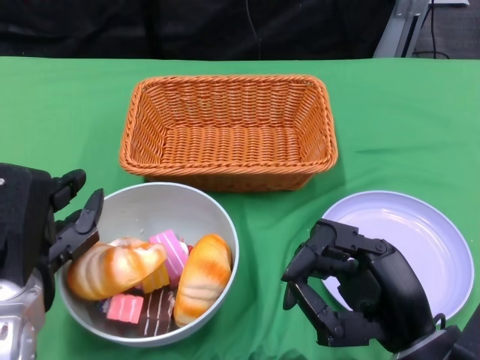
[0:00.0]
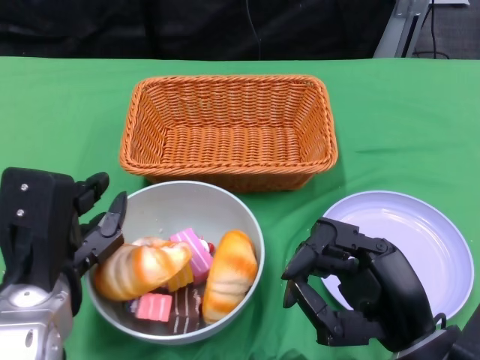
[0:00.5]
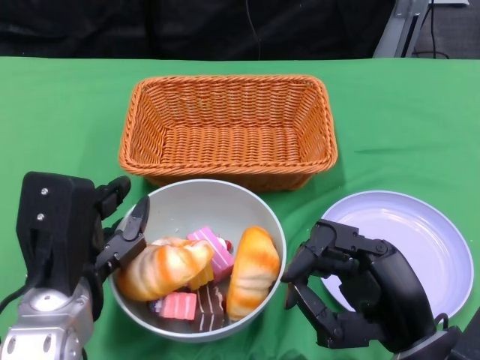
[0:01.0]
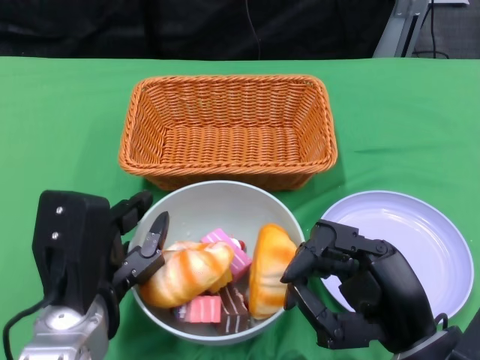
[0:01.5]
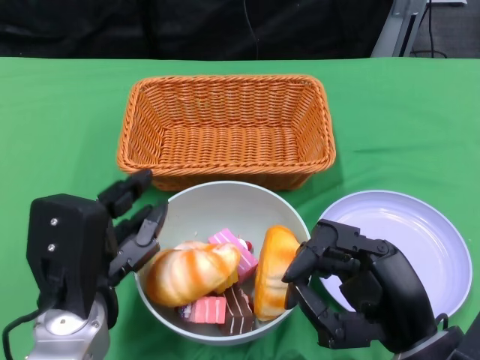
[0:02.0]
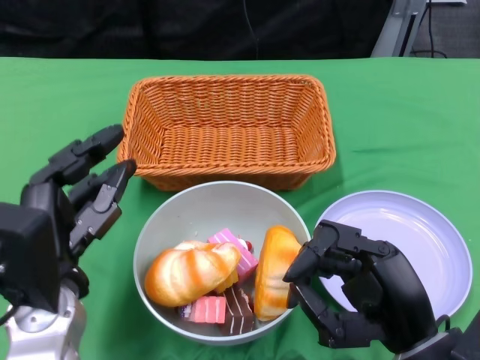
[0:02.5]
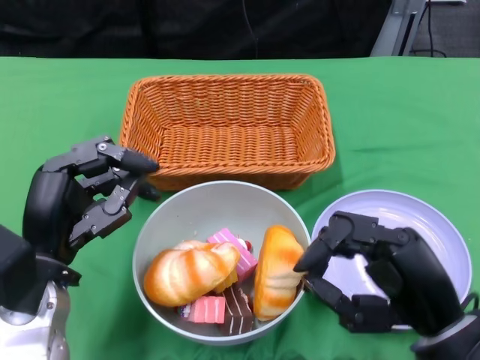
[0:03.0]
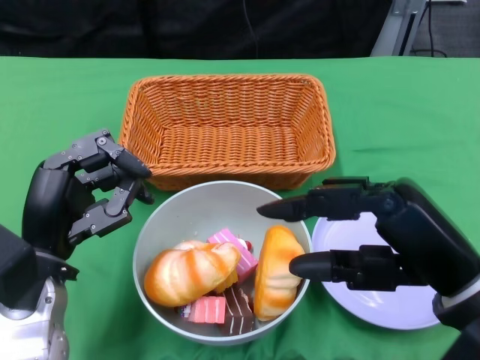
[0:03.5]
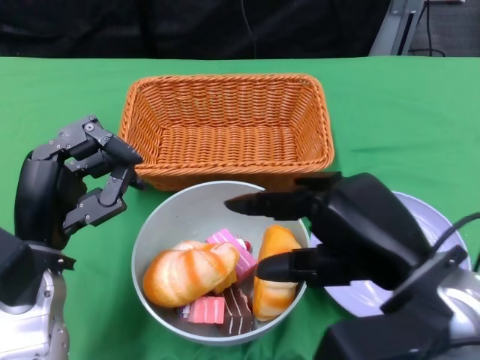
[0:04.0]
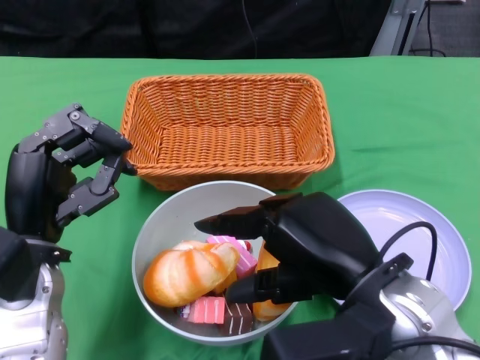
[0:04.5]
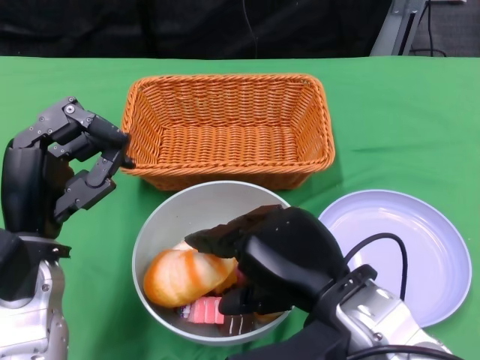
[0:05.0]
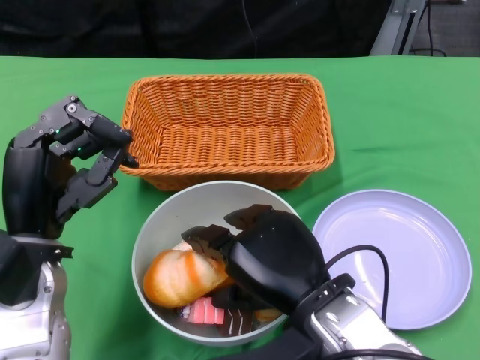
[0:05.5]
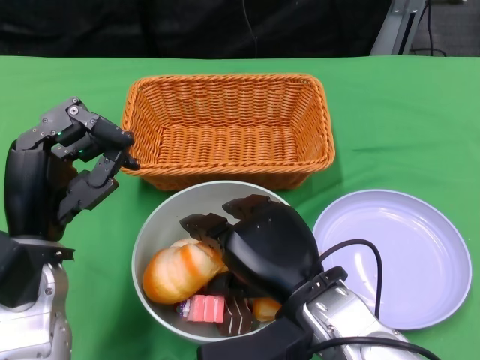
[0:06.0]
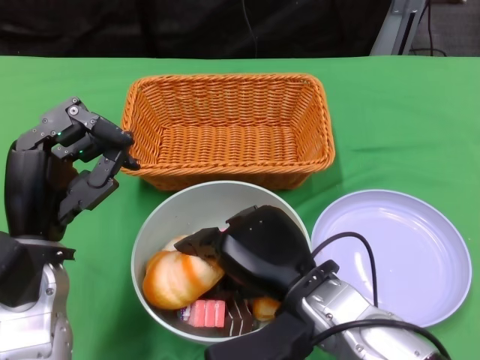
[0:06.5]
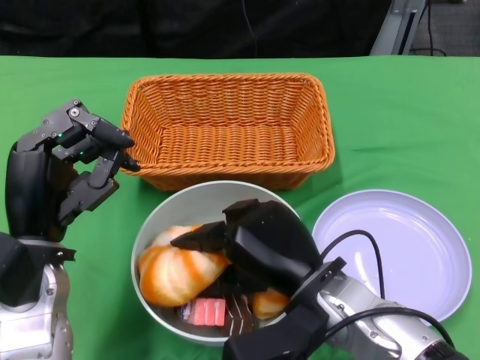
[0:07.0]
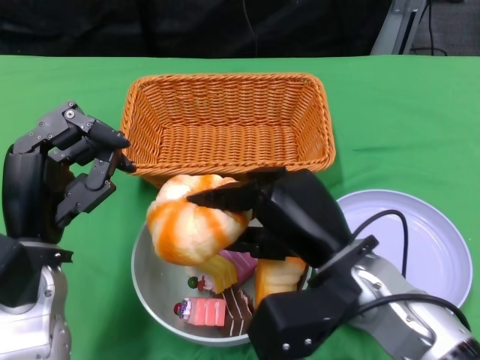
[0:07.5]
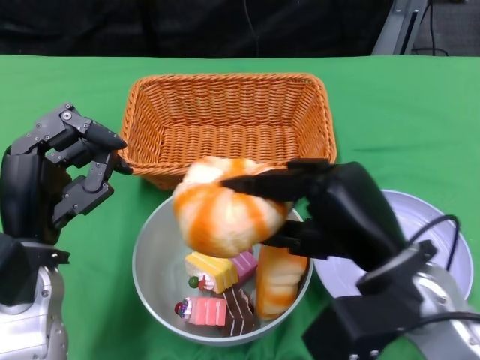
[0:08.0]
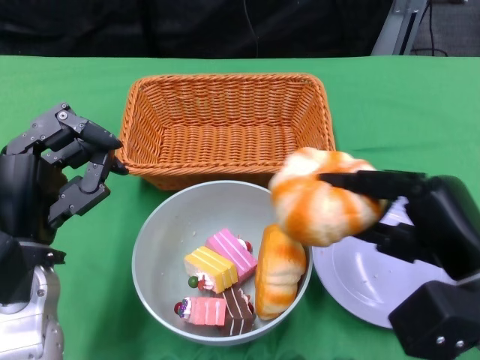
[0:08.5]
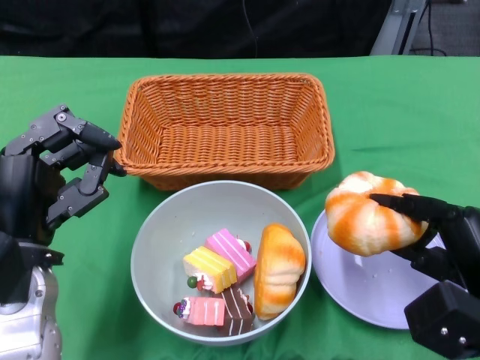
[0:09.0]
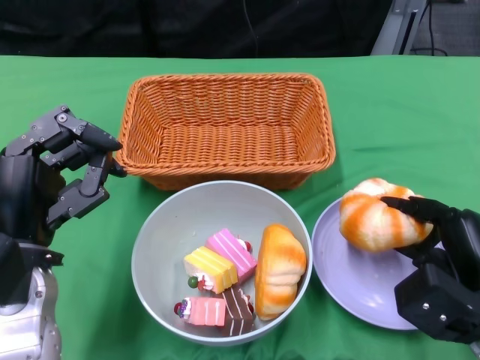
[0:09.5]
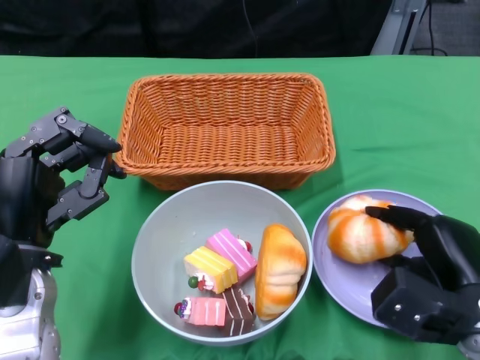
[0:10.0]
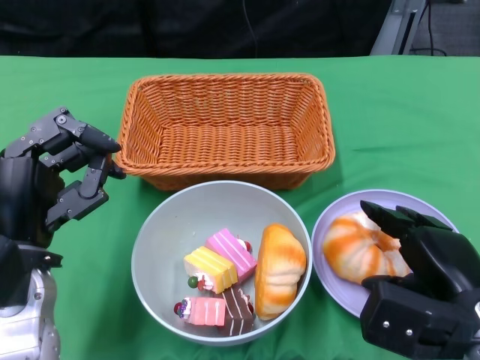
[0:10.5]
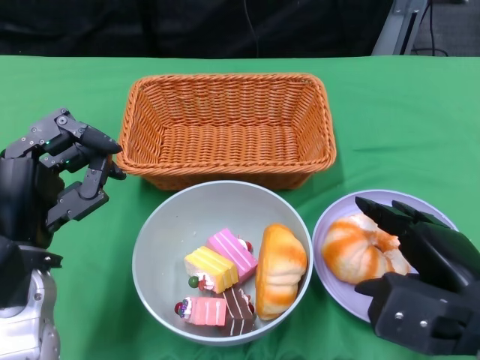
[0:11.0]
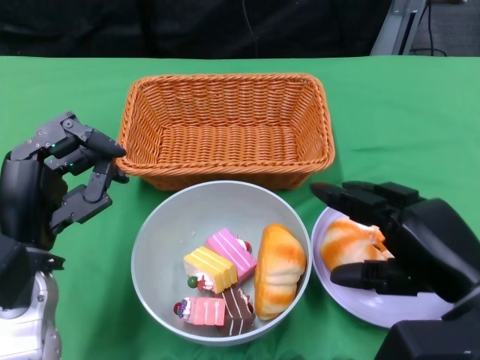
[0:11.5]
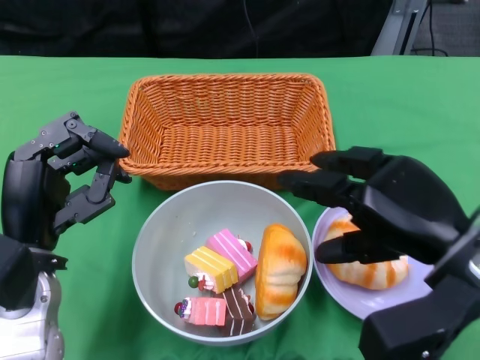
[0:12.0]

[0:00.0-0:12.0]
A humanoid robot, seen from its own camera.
Step, 0:00.0 to 0:02.0: Push the bowl to the center of the table using the left gripper.
0:00.0 to 0:02.0: The left hand goes about 5 cm to the right.
0:02.0 to 0:04.0: The left hand ends up roughly 5 cm from where it was; the right hand travels upward by approximately 10 cm.
0:04.0 to 0:06.0: The right hand heads to the left and downward, covering roughly 10 cm.
0:06.0 to 0:08.0: The right hand goes about 5 cm to the right.
0:08.0 to 0:10.0: The right hand moves downward and to the right, about 15 cm.
0:10.0 to 0:12.0: The right hand goes about 10 cm upward.

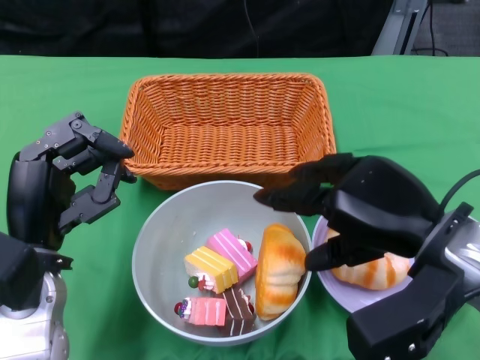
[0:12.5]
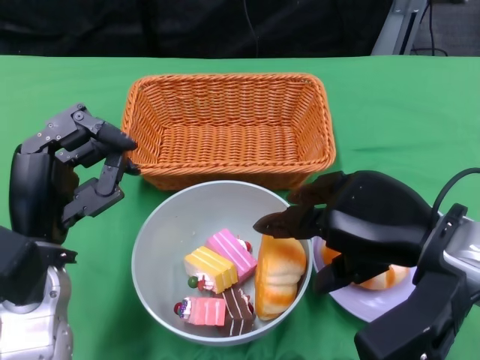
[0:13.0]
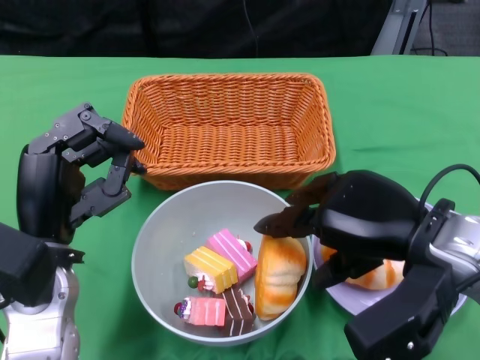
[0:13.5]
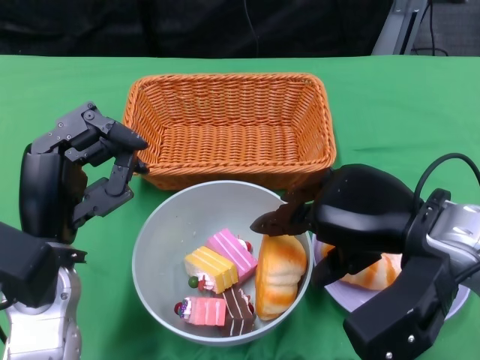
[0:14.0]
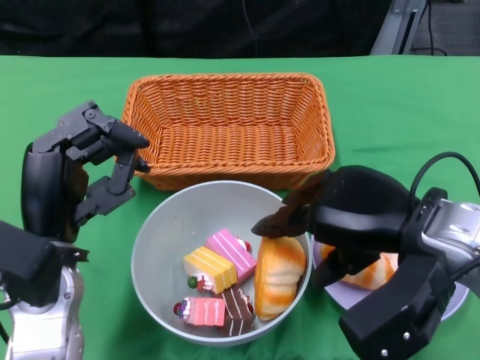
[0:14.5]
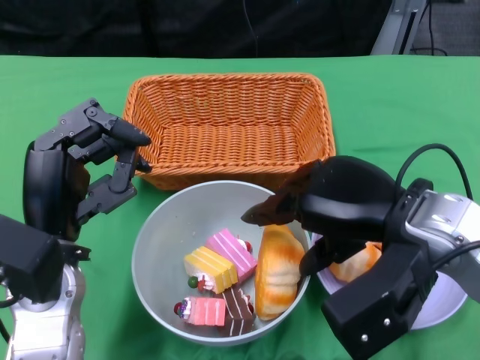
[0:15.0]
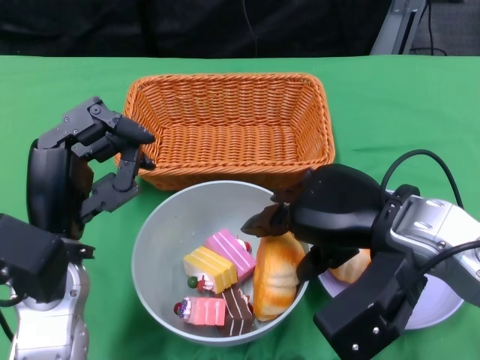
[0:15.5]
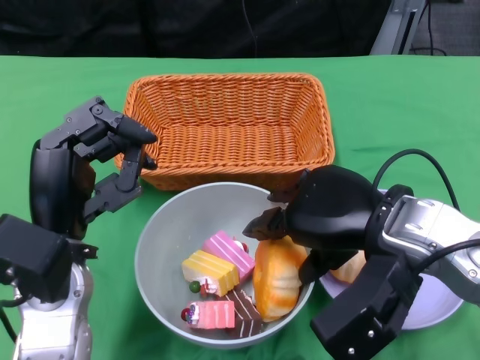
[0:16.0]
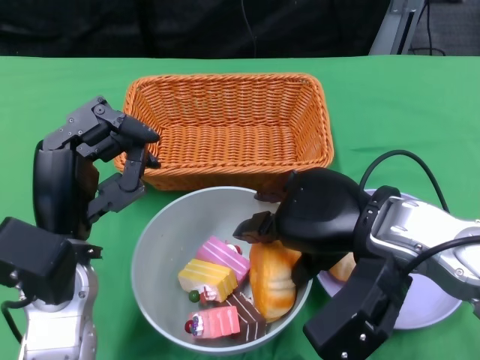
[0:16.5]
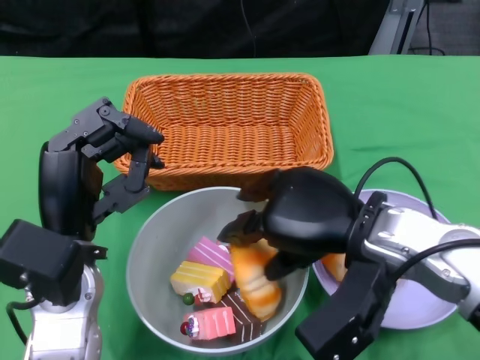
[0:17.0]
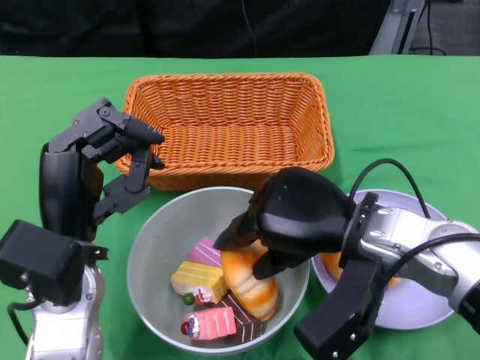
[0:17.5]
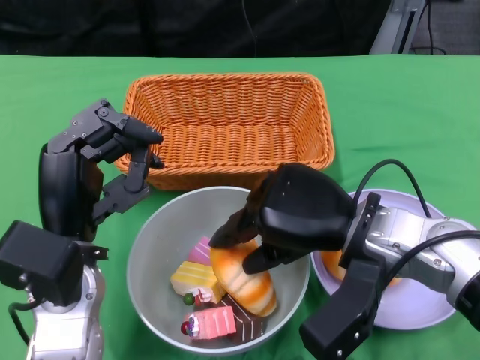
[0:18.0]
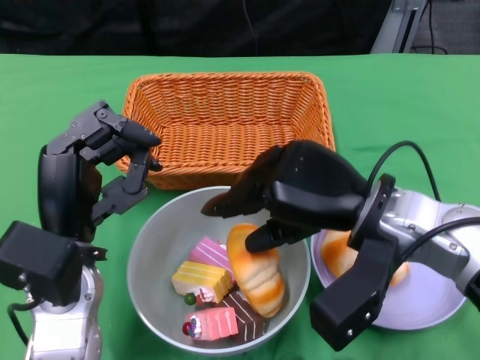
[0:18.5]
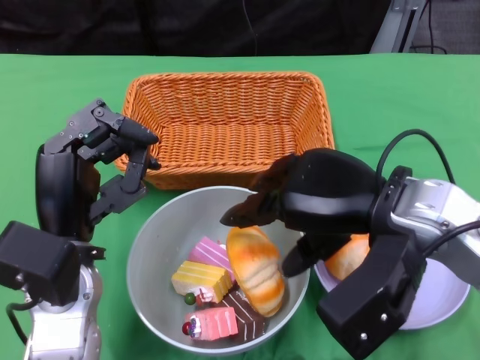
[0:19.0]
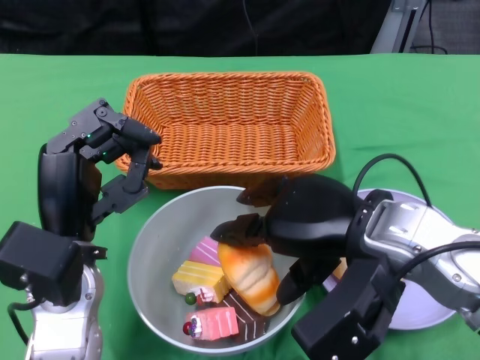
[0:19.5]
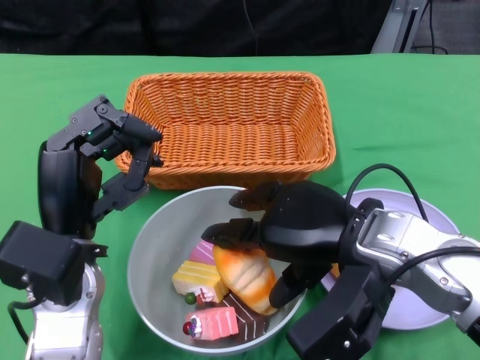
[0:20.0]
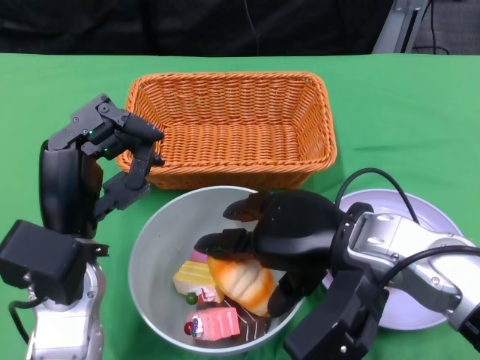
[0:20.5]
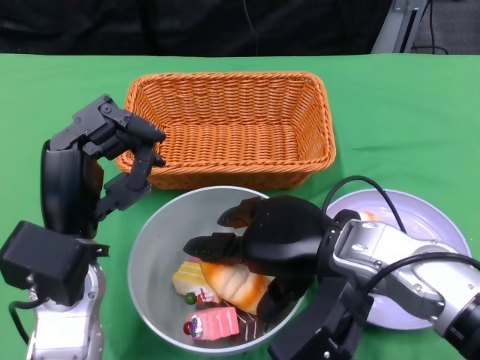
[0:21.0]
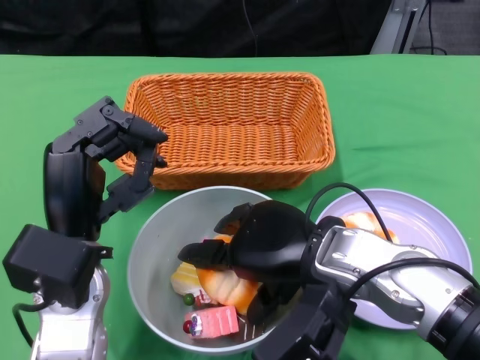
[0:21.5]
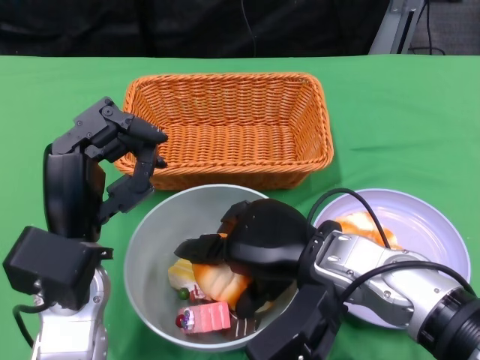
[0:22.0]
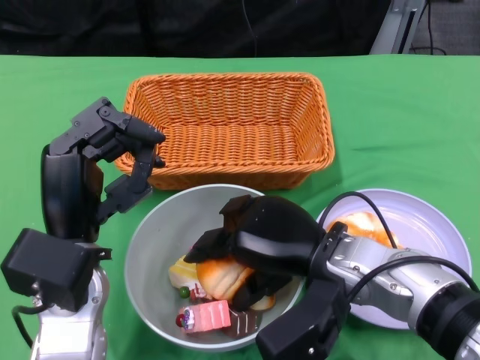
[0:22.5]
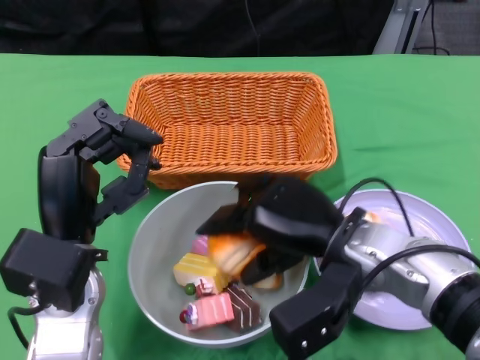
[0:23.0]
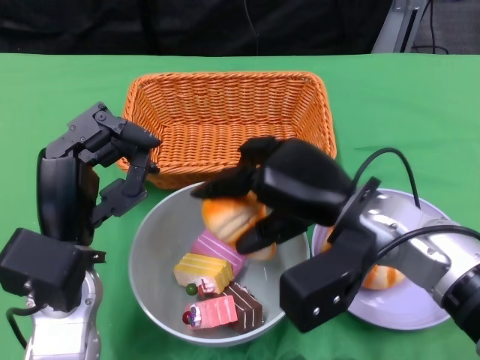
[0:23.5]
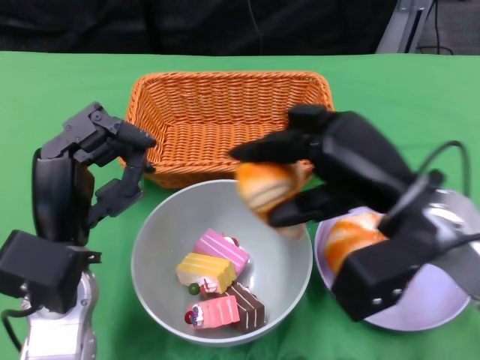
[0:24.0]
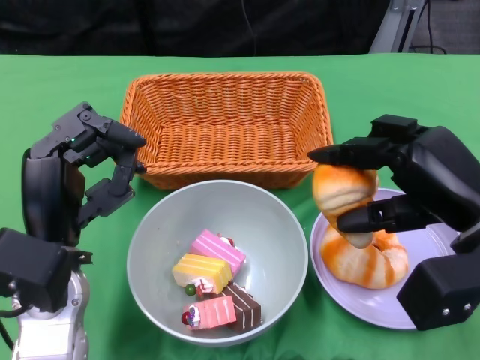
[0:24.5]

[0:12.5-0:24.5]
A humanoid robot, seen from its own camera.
0:20.5 to 0:22.5: The right hand ends up about 5 cm from where it was.
0:22.5 to 0:24.5: The right hand moves to the right, approximately 15 cm.

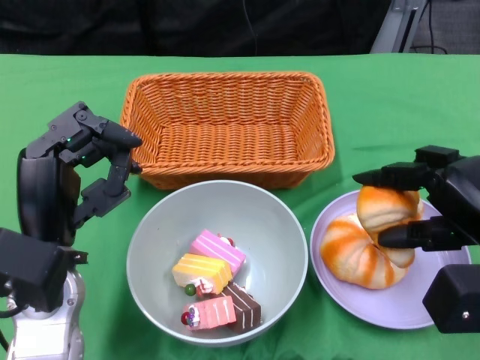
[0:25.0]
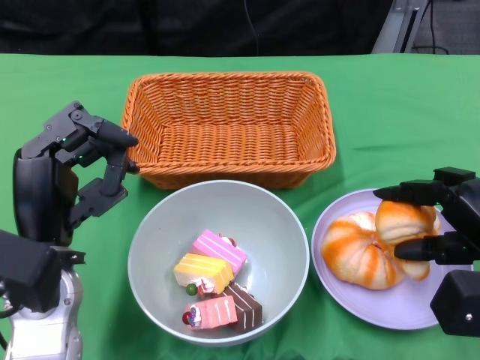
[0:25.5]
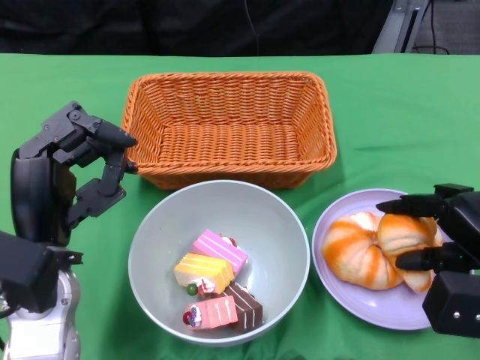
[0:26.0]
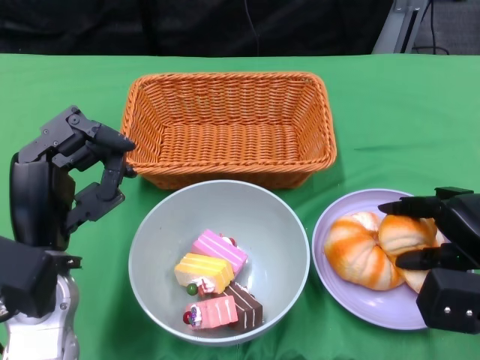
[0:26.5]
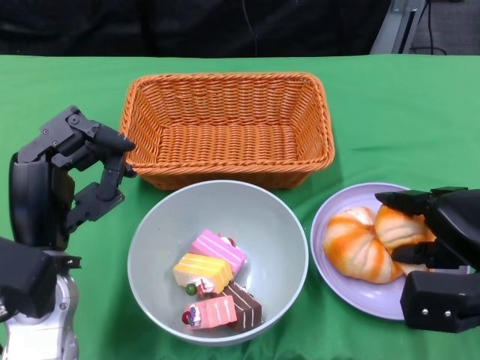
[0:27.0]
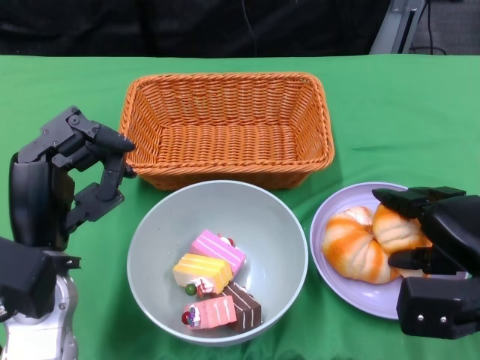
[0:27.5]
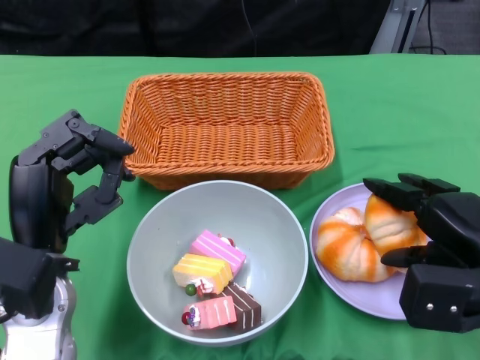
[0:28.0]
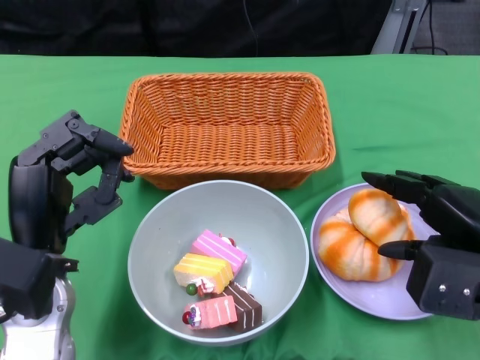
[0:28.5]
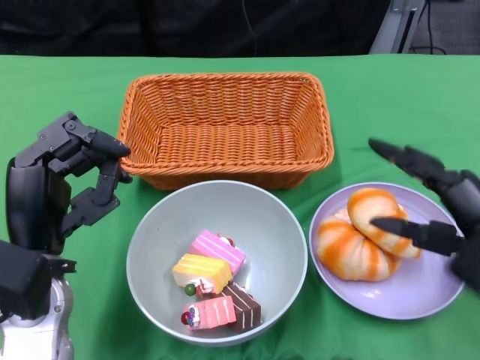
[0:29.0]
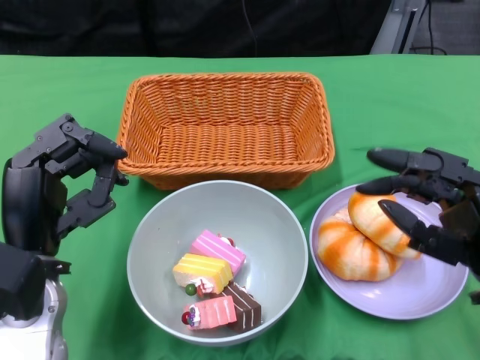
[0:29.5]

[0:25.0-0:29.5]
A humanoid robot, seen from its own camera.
Step, 0:25.0 to 0:28.5: Pick up the bread with the right gripper and place it on the plate.
0:25.0 to 0:27.0: The right hand is displaced downward by some 5 cm.
0:27.0 to 0:29.5: The right hand shifts by approximately 5 cm.
